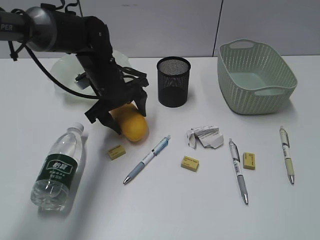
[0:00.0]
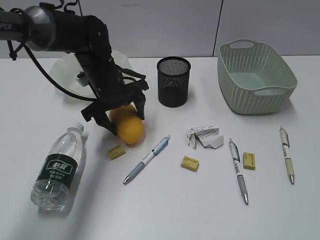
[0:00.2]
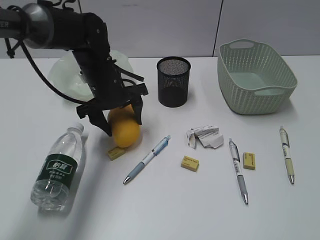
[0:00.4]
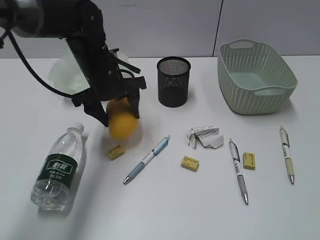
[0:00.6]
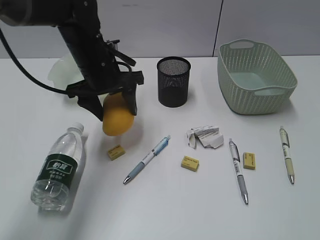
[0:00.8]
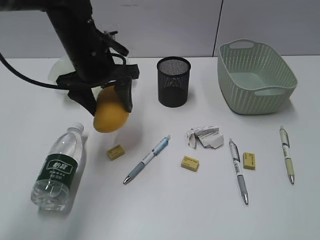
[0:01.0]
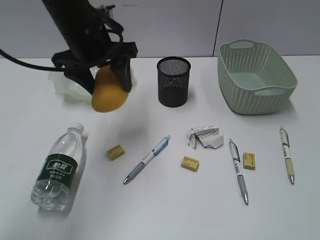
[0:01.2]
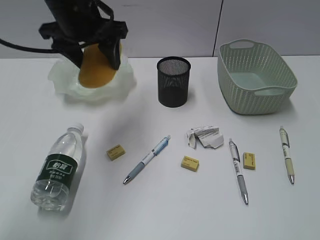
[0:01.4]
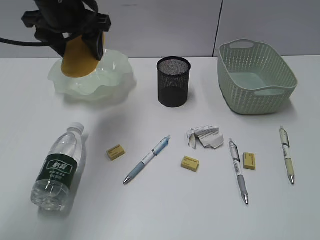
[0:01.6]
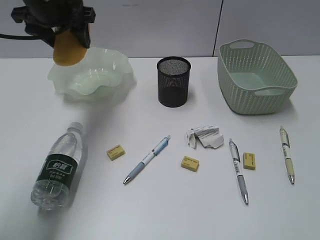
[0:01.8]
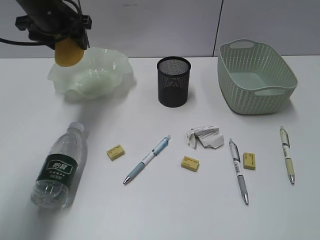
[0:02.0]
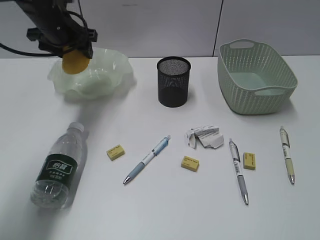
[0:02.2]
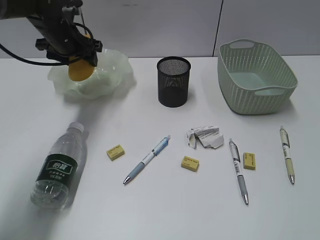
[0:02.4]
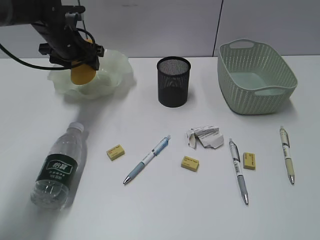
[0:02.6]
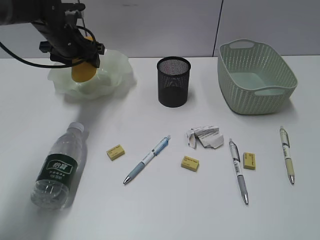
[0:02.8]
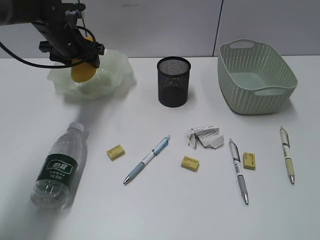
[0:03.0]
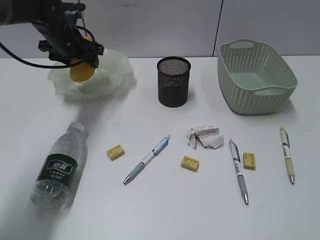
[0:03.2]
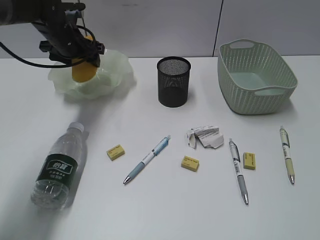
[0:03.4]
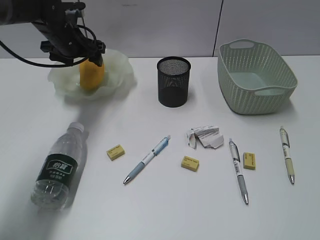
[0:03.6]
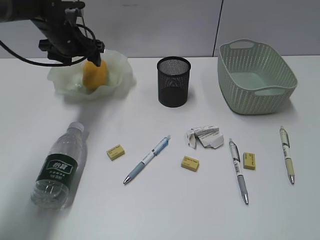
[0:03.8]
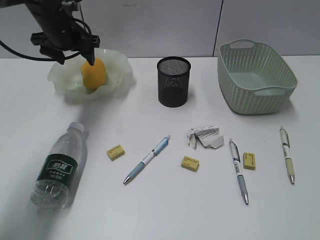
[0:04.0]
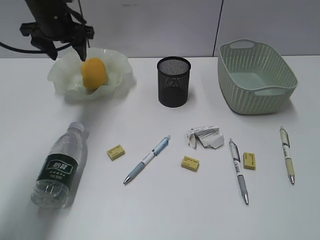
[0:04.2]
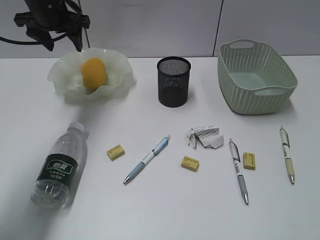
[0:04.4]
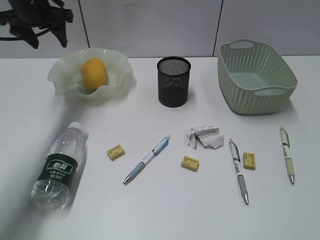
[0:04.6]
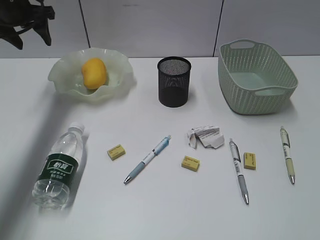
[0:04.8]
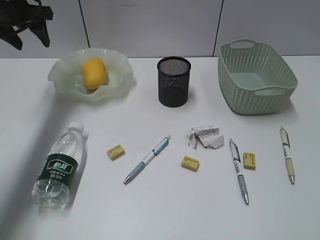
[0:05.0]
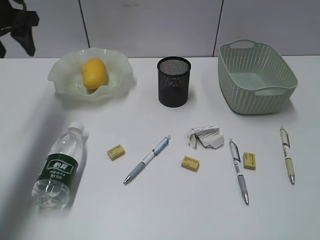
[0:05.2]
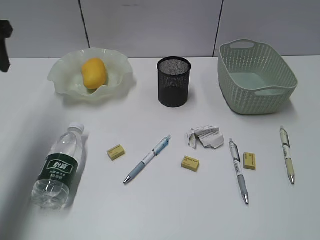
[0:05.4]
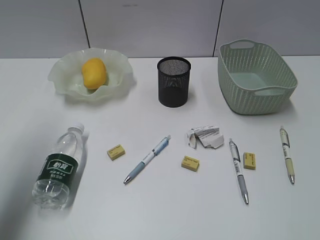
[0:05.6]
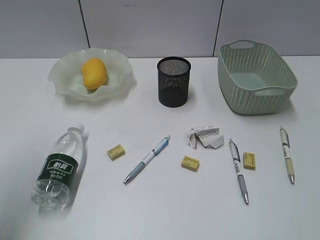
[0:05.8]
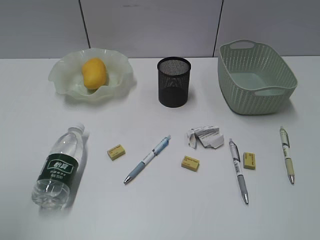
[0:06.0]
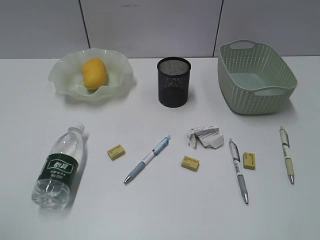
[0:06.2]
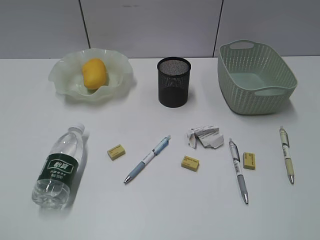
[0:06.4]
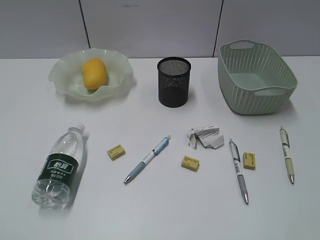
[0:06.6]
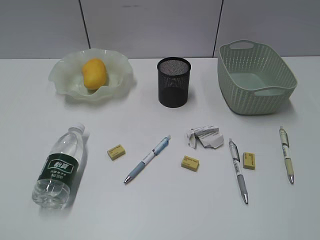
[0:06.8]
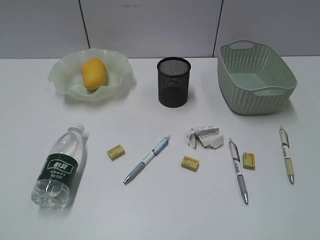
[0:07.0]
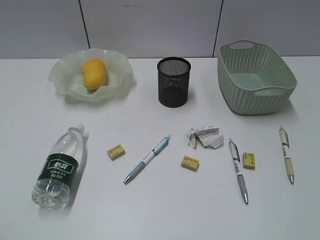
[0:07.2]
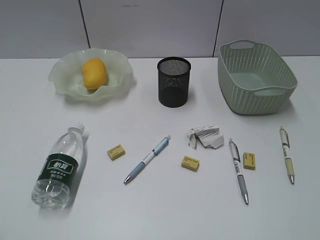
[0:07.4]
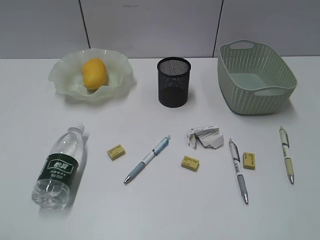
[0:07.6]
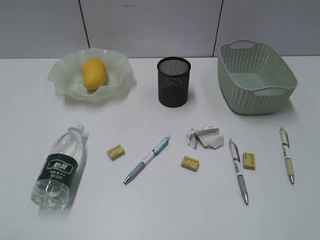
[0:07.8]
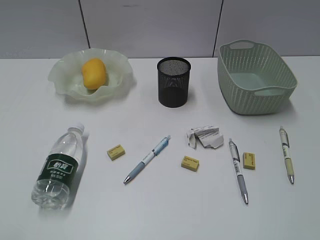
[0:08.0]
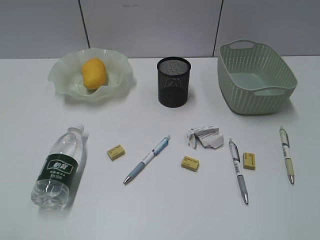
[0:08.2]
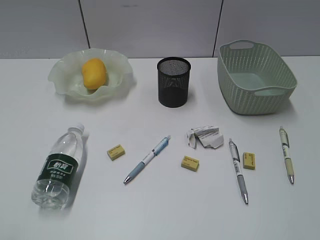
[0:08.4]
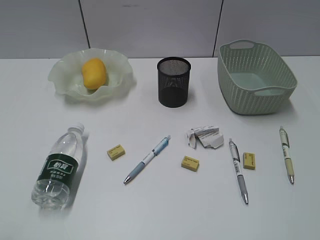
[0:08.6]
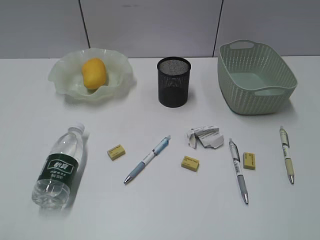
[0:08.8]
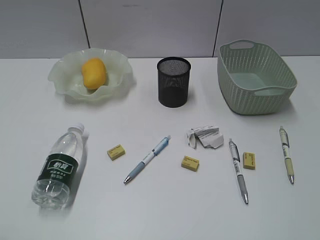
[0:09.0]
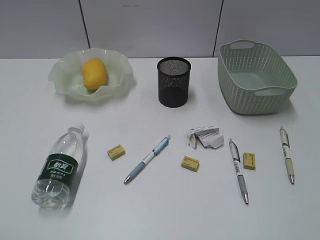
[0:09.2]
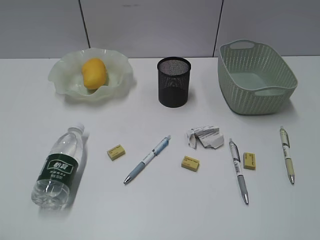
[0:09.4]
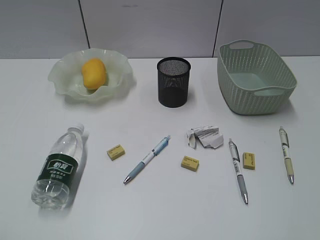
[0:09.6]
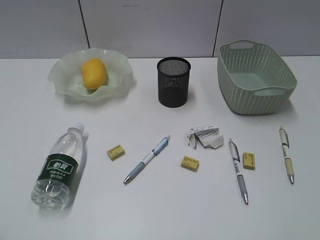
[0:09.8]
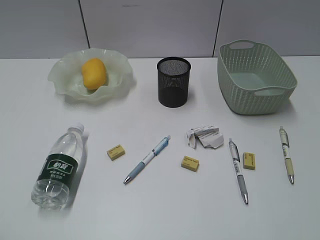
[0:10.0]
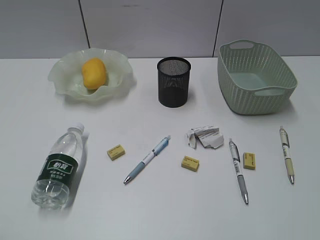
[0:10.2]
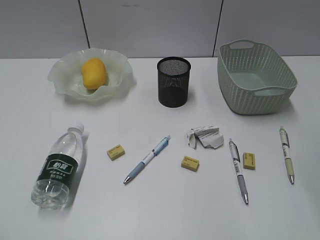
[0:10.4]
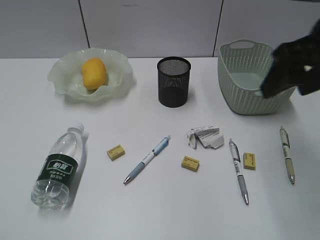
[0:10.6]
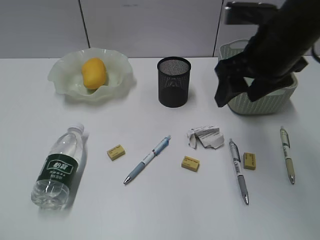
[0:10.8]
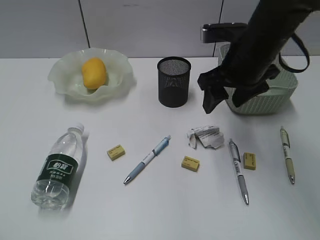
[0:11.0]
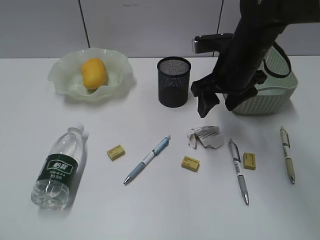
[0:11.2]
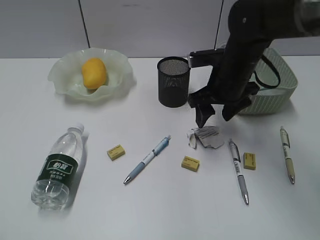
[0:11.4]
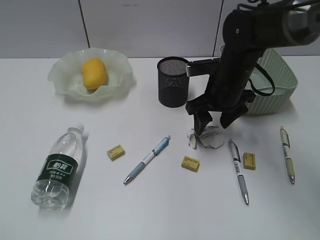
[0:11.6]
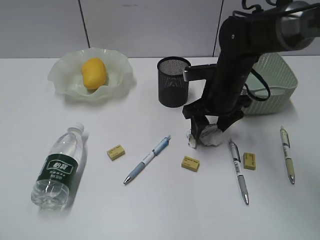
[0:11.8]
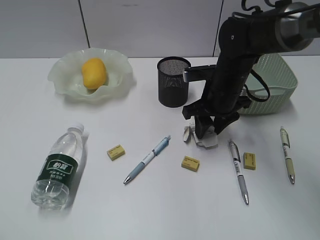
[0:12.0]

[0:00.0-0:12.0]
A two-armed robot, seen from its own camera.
Step, 0:00.0 to 0:04.0: Place the mango in the plate with left gripper.
0:00.0 to 0:01.6: The left gripper is displaced upward by approximately 15 cm.
0:01.6 to 0:03.0: The left gripper shifts approximately 15 cm downward and forward.
0:03.0 to 0:04.4: The left gripper is displaced upward by some 10 cm.
0:04.4 to 0:06.0: The left gripper is displaced backward by some 40 cm.
0:06.0 to 0:07.6: The left gripper travels backward and downward by approximately 15 cm.
0:10.4 to 0:12.0: The right gripper goes about 30 cm downward, forward and to the left.

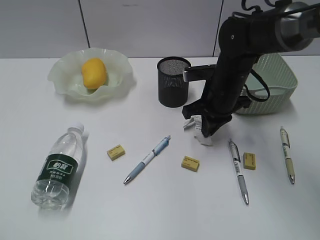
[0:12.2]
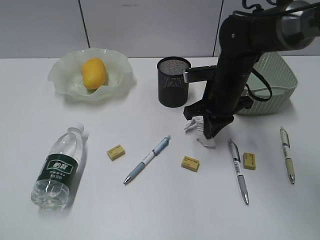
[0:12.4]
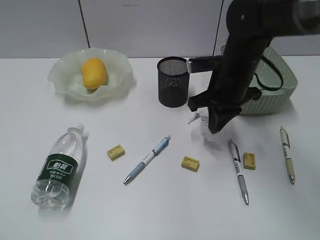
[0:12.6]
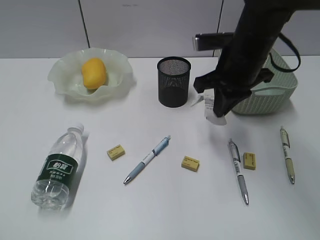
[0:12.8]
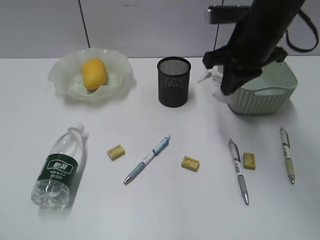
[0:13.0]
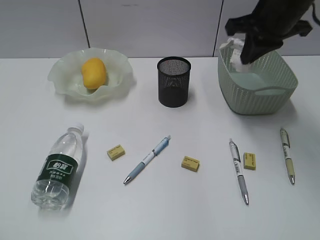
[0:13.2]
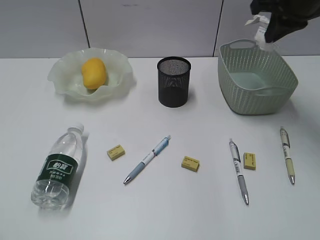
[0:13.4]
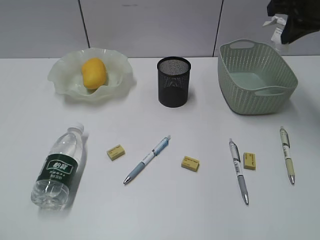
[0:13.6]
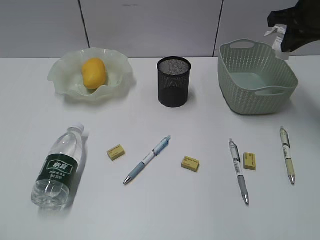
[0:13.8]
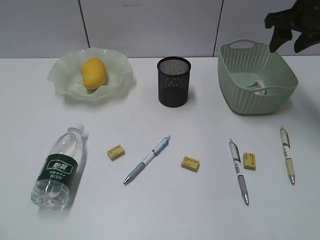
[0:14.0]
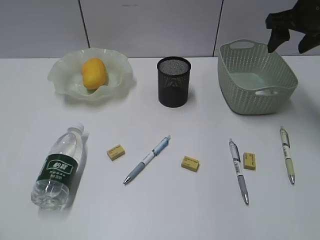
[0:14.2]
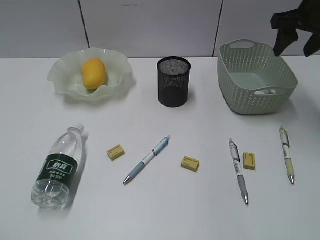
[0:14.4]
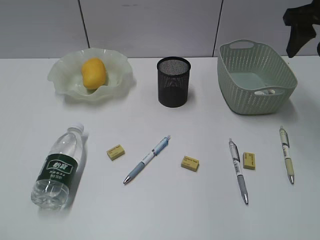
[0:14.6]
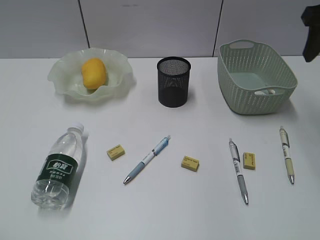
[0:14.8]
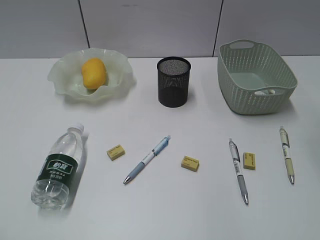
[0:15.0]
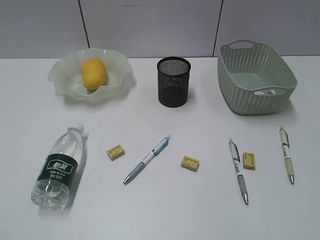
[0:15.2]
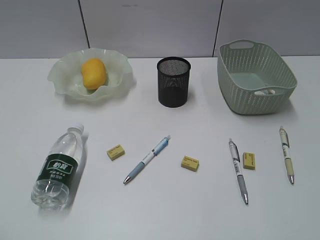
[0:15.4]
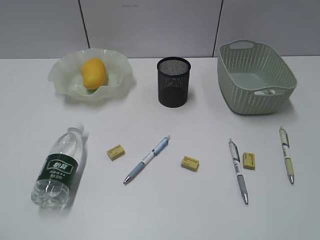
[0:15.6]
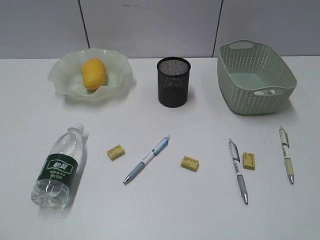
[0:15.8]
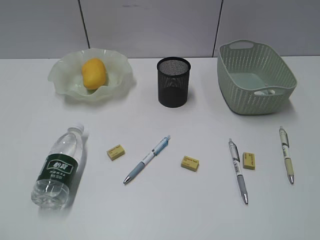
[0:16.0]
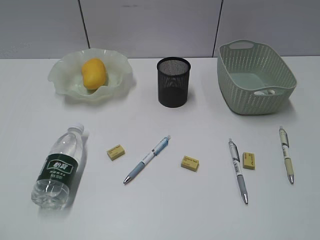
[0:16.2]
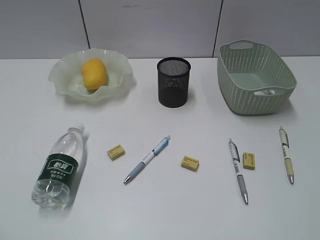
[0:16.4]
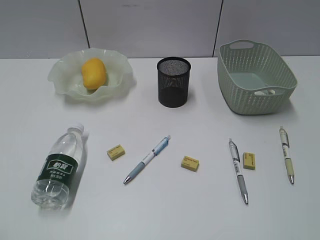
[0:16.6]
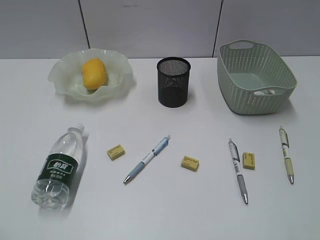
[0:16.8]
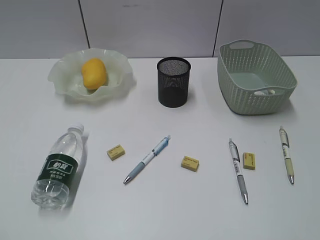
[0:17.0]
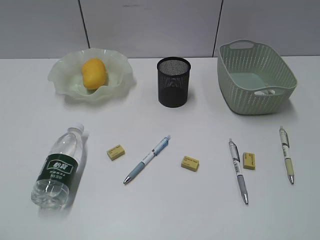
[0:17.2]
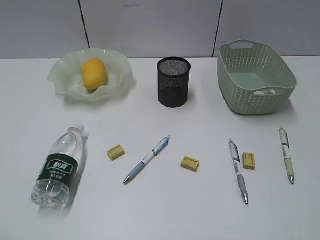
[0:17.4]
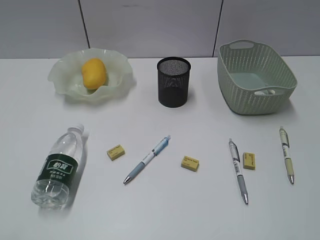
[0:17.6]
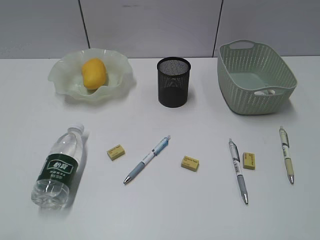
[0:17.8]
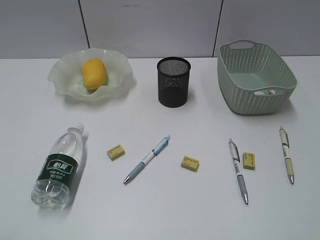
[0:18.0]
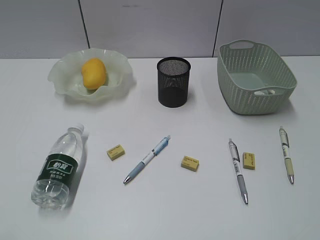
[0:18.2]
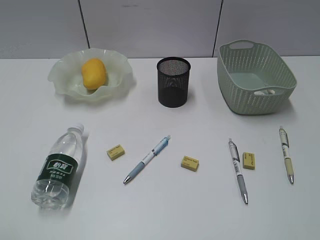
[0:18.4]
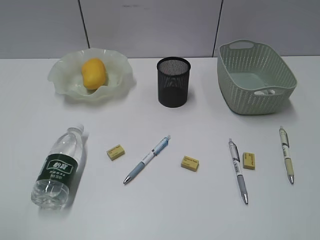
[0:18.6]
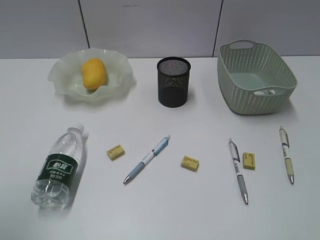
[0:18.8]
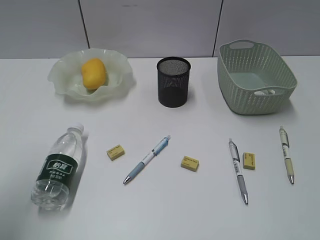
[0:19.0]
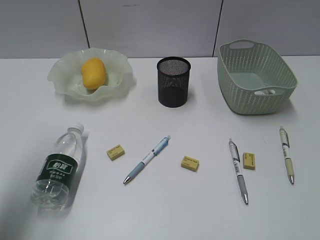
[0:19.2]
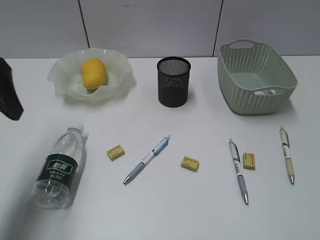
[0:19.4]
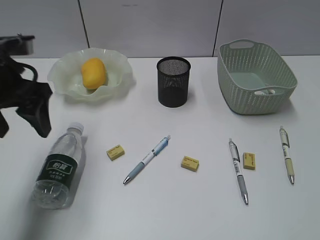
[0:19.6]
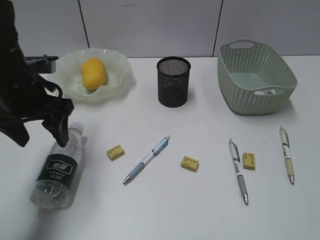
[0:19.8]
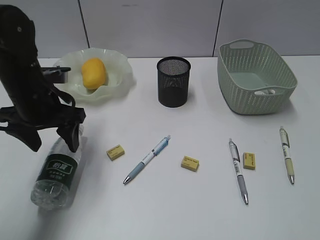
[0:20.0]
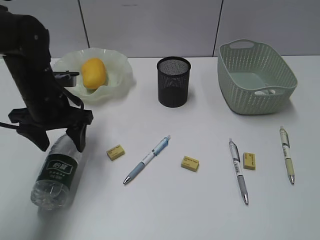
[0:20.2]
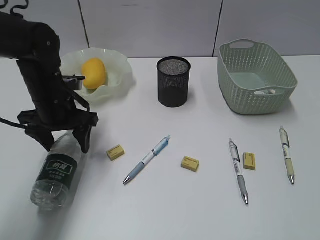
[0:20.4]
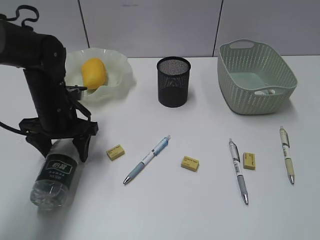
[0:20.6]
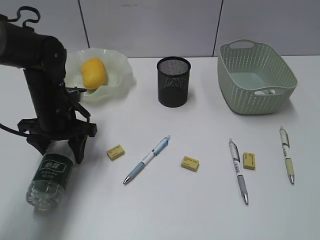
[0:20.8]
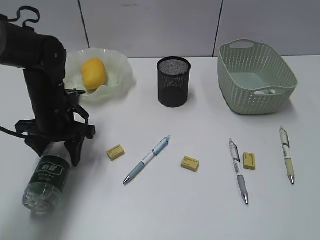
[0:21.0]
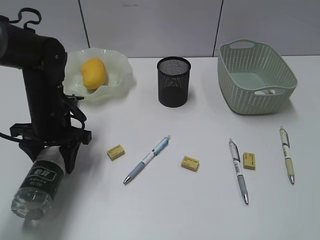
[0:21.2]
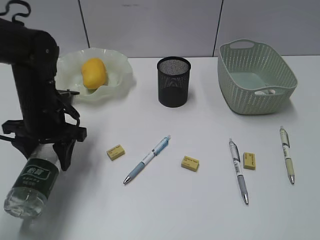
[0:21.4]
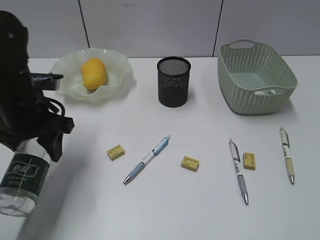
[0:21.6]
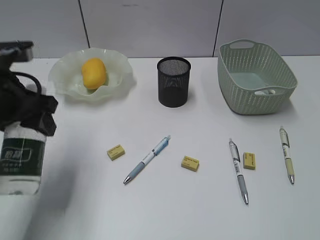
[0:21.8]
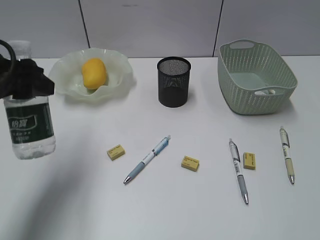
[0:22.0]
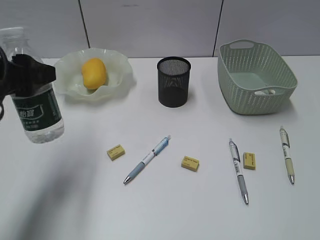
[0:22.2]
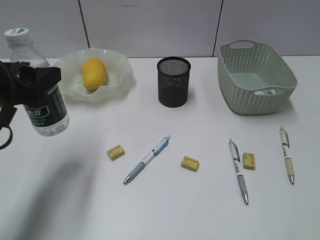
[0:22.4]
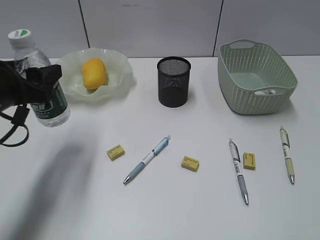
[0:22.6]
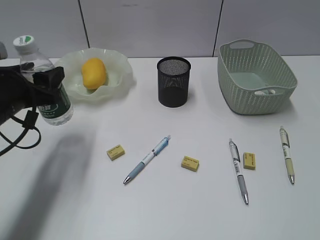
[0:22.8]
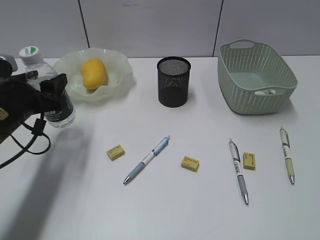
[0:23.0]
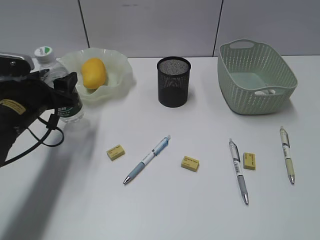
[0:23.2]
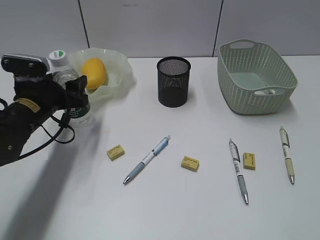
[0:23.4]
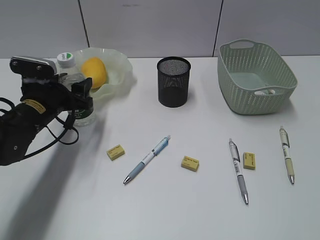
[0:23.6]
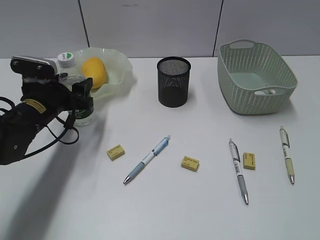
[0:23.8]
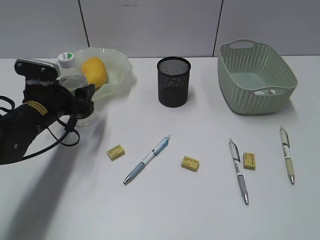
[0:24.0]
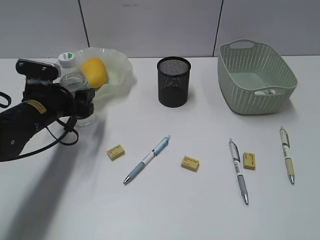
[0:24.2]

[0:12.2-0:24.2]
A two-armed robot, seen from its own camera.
Step, 0:12.4 to 0:14.0: Place the waste paper in the basket with right gripper.
Step, 0:14.2 to 0:21.0: Grasp the bottle with left gripper.
0:12.2 to 0:13.8: The right gripper heads to the right and upward, covering approximately 20 cm.
0:13.8 to 0:15.2: The right gripper heads backward, covering approximately 25 cm, and opens its fingers.
0:18.2 to 0:19.8: The left gripper moves forward, approximately 30 cm.
0:19.8 to 0:21.2: The left gripper shifts some 10 cm downward.
0:21.2 to 0:22.6: The left gripper is displaced backward and upward by some 15 cm.
0:22.6 to 0:24.2: The left gripper moves downward and forward, roughly 15 cm.
